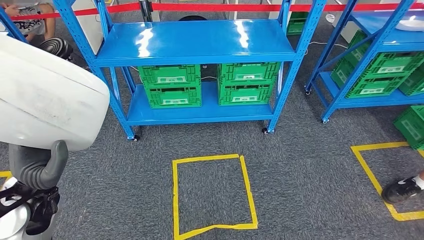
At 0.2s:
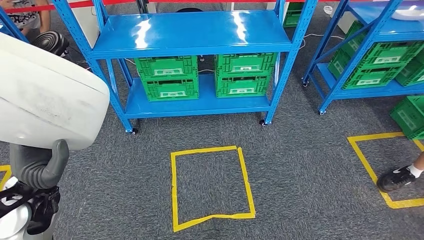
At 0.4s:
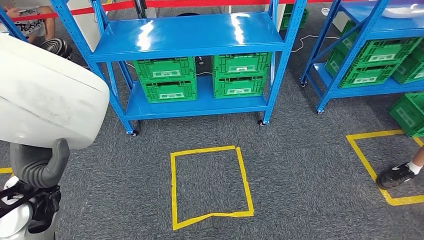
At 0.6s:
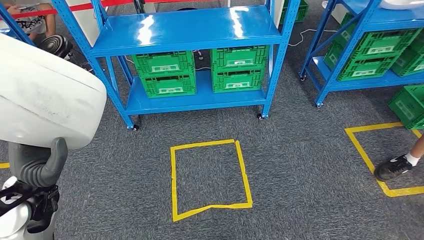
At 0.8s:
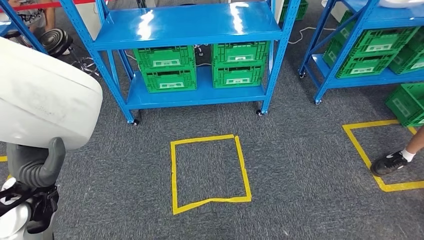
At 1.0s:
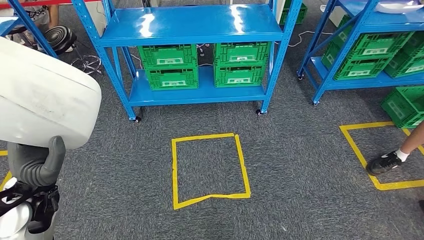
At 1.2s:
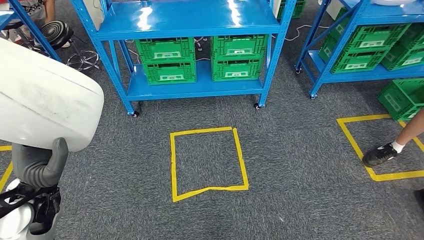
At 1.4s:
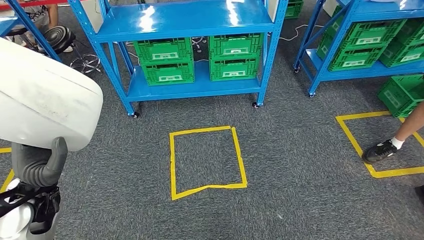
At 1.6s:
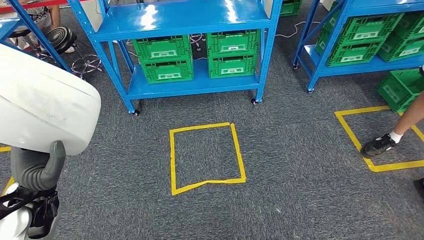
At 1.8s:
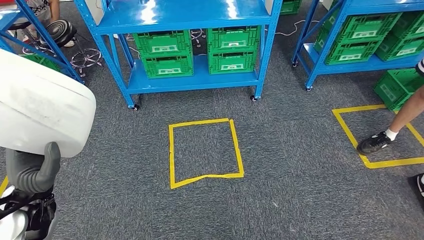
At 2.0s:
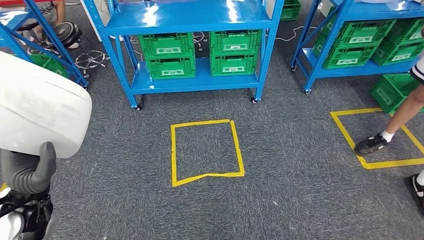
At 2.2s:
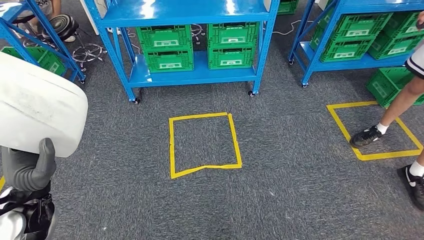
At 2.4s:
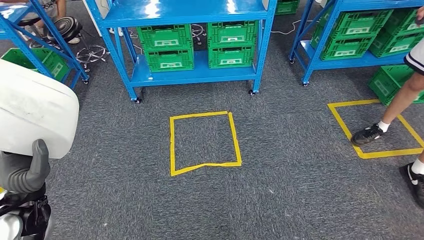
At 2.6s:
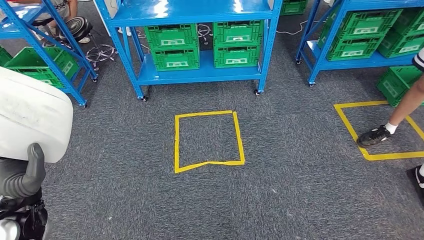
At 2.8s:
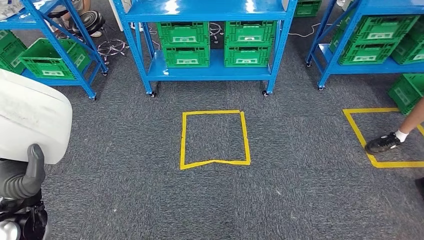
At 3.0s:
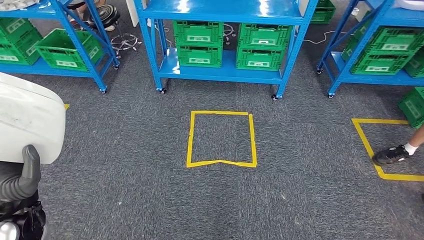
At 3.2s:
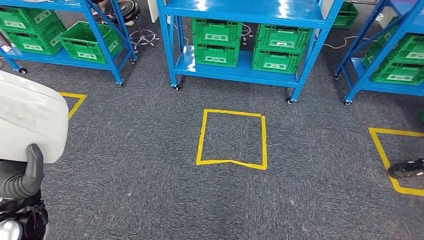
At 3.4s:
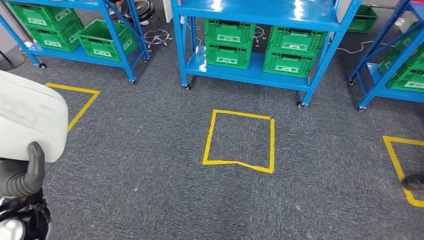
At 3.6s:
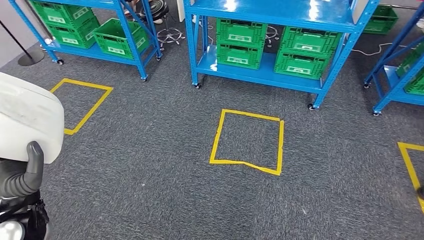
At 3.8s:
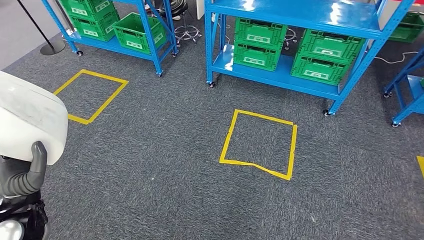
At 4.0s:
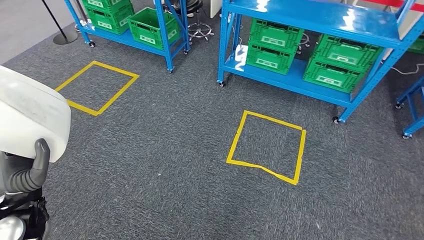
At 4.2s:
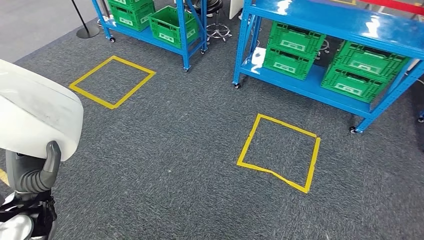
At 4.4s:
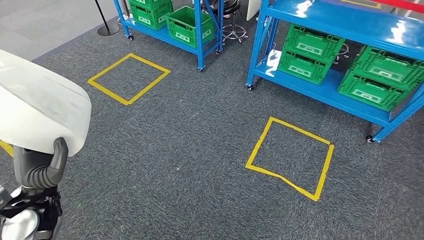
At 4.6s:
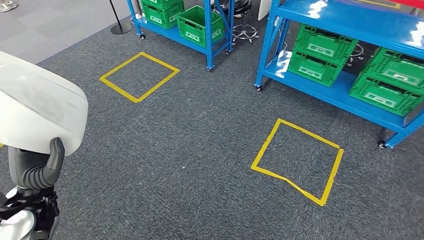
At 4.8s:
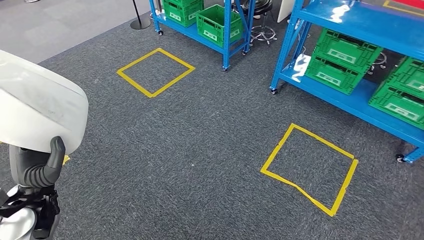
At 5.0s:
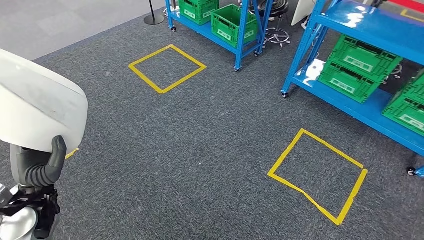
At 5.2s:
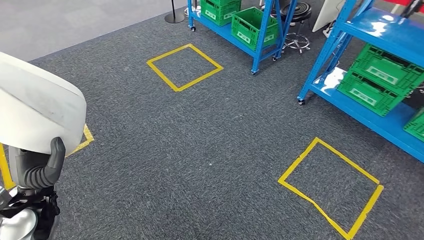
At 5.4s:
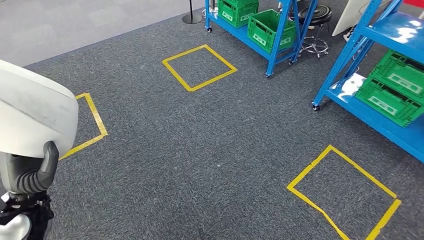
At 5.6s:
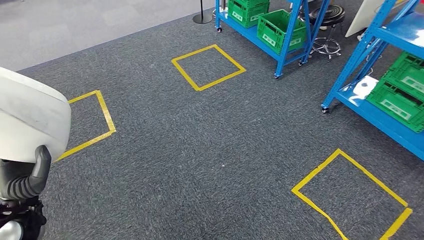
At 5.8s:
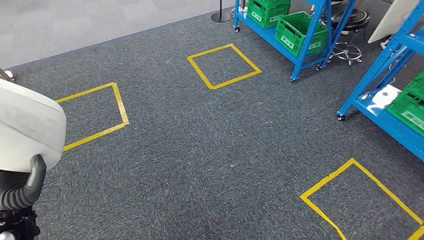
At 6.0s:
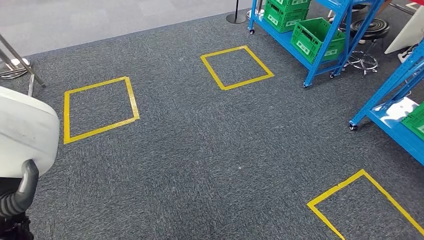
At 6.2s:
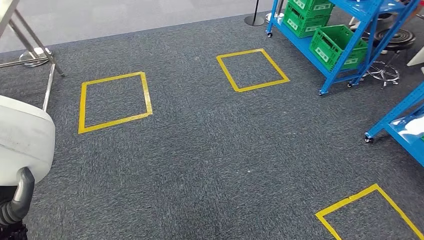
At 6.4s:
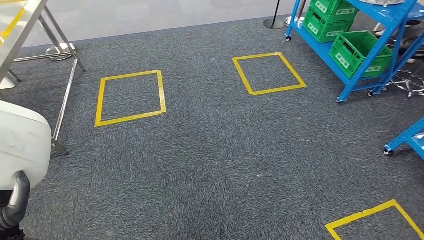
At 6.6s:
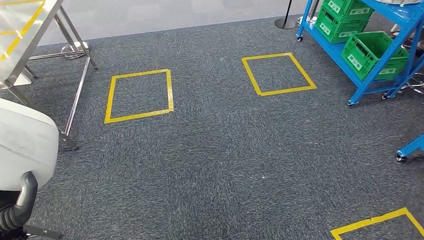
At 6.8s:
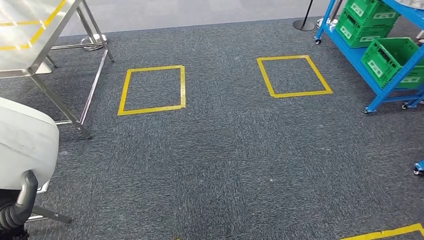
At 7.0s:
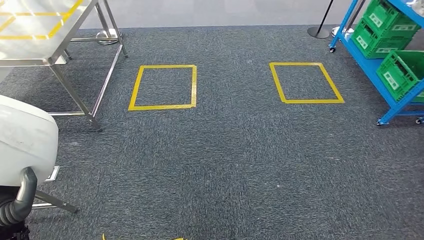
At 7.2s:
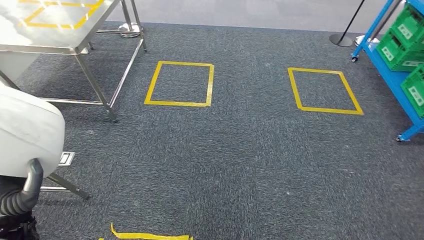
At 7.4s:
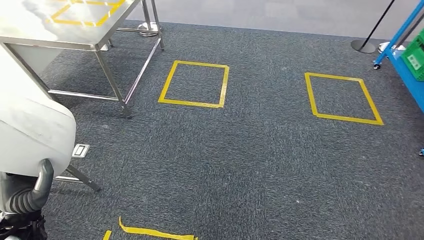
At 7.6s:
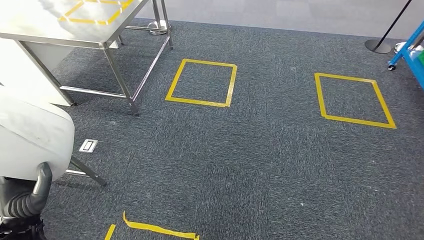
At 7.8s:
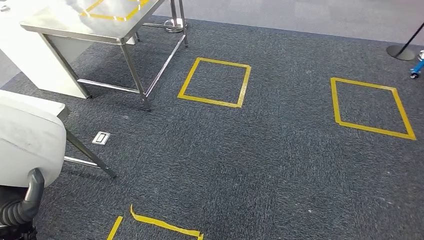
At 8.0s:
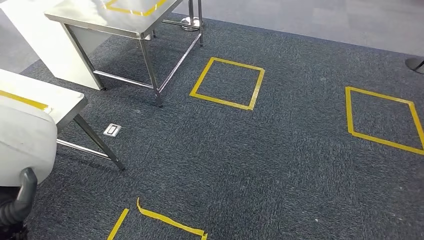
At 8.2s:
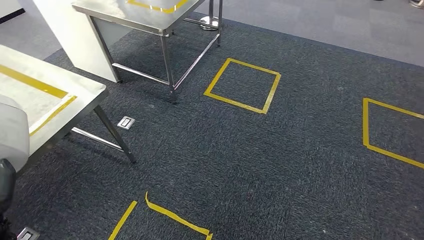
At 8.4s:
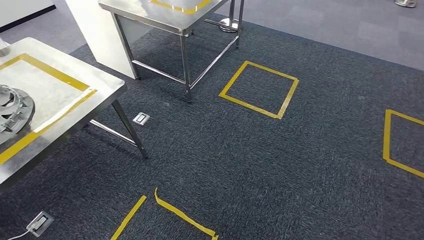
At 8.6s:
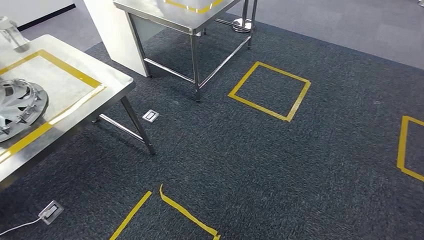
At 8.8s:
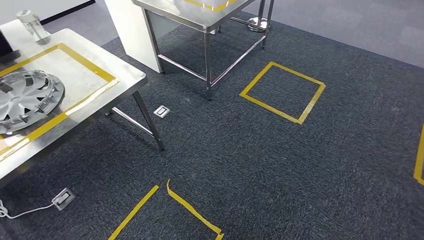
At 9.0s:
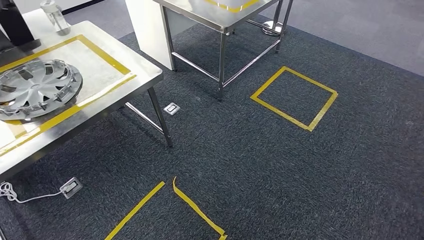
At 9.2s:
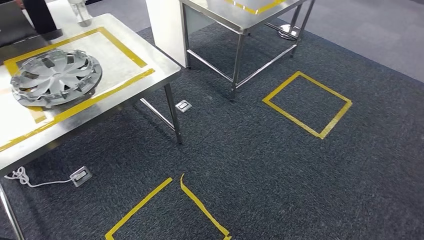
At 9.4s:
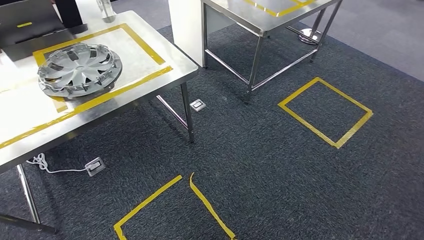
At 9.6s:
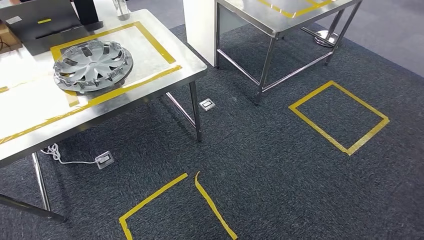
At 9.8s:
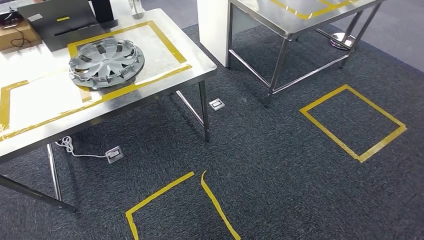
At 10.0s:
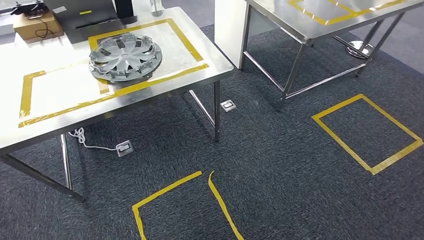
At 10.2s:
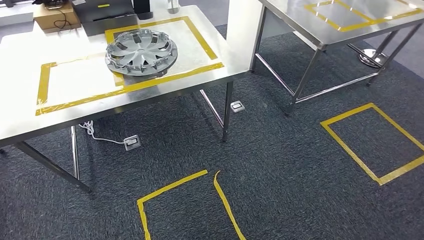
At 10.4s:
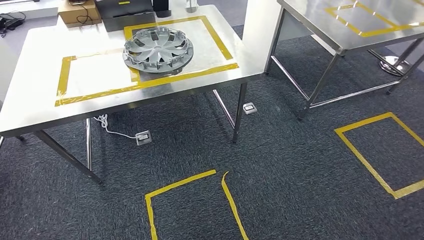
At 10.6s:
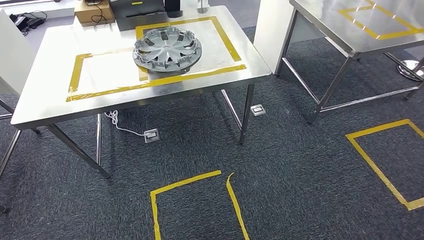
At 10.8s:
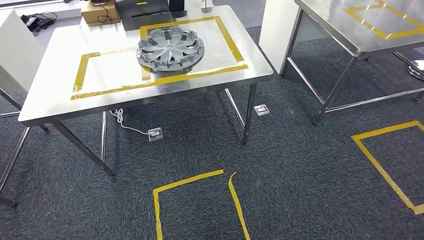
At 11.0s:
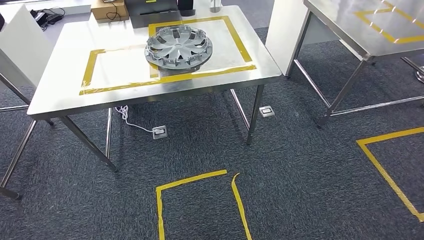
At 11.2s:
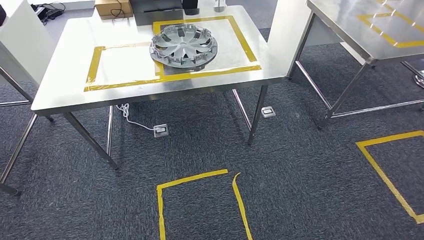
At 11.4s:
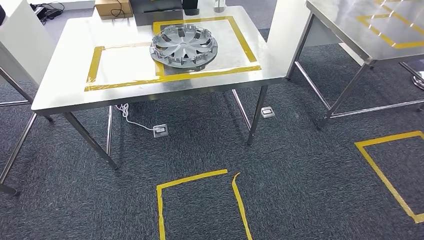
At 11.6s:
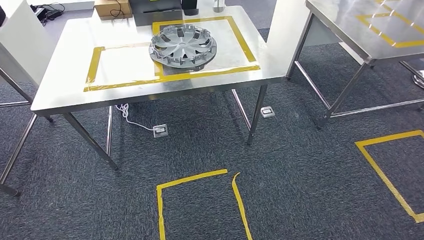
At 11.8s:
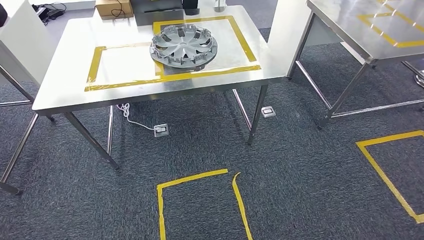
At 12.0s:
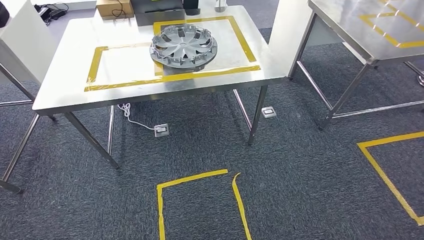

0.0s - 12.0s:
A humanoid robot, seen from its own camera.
Step, 0.0s - 9.8s: Move the small parts to the workbench.

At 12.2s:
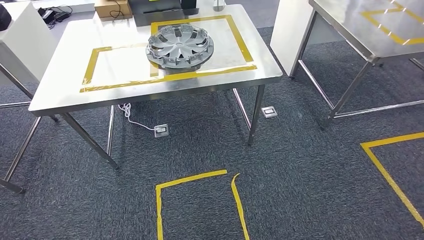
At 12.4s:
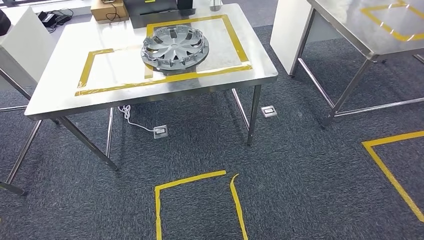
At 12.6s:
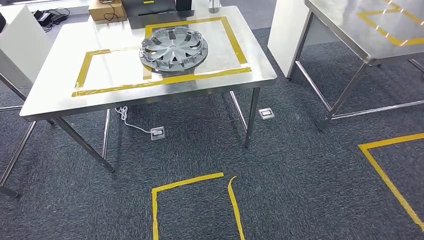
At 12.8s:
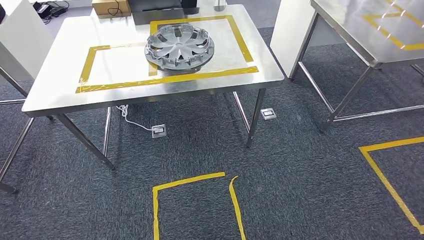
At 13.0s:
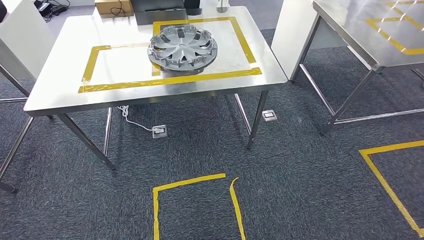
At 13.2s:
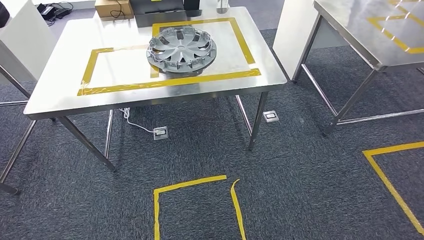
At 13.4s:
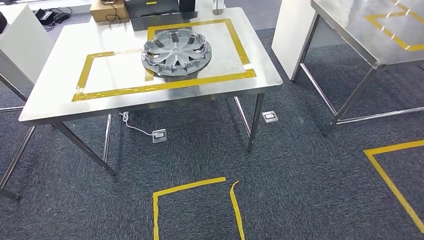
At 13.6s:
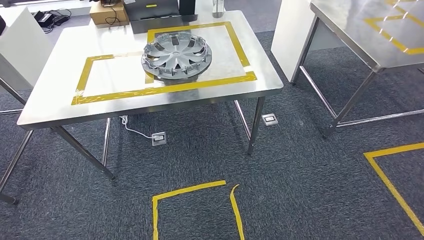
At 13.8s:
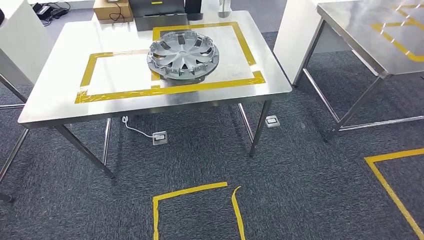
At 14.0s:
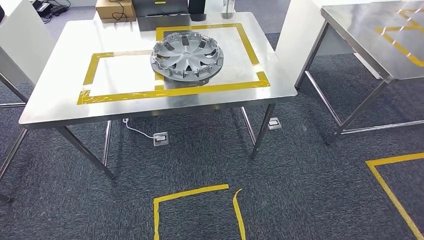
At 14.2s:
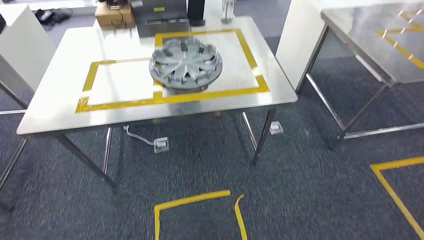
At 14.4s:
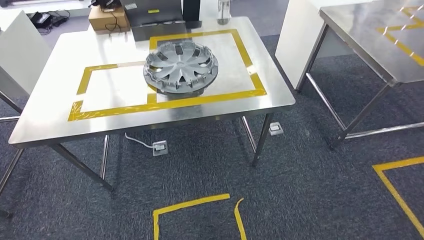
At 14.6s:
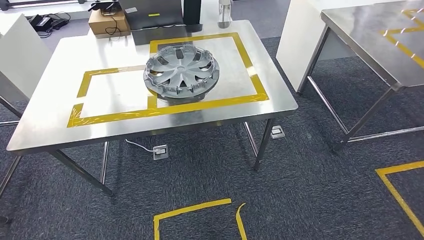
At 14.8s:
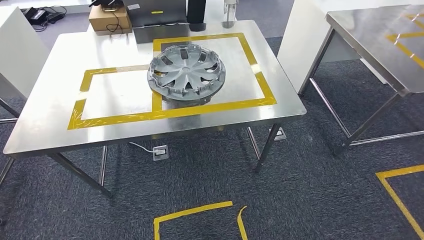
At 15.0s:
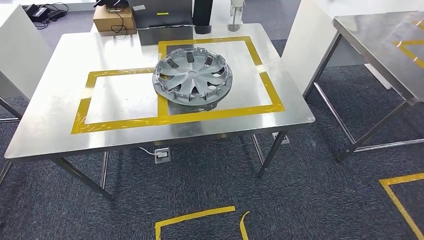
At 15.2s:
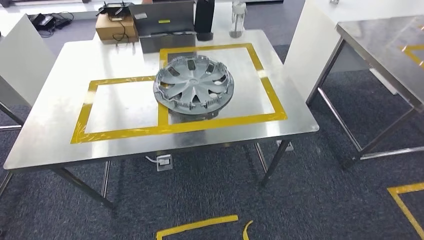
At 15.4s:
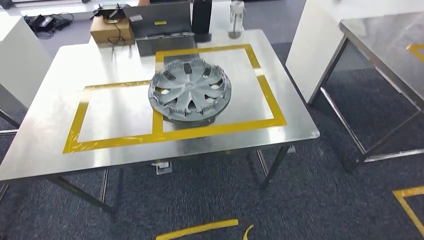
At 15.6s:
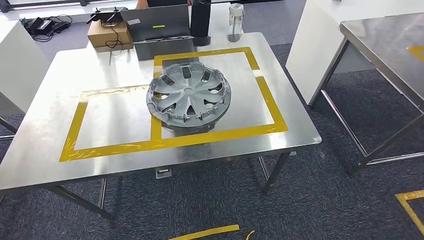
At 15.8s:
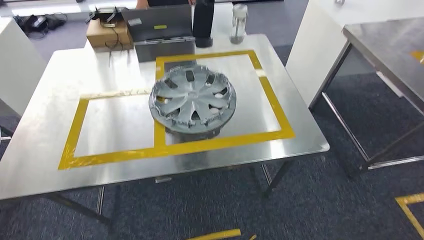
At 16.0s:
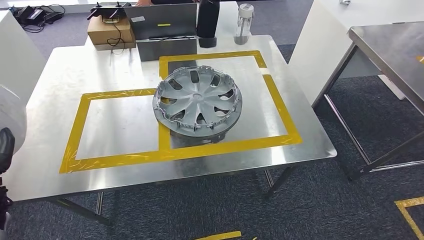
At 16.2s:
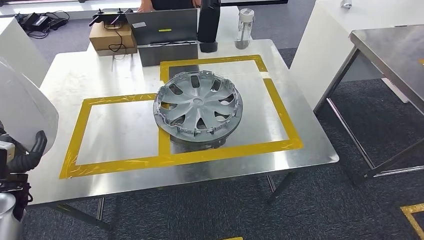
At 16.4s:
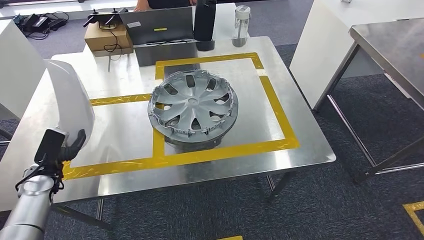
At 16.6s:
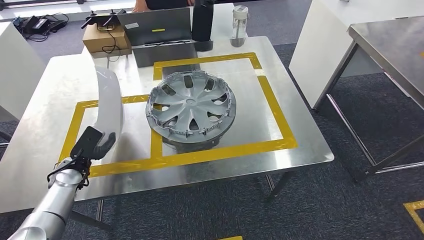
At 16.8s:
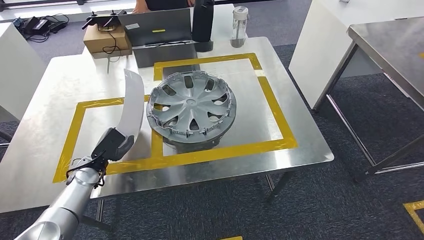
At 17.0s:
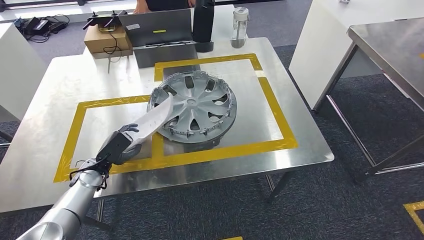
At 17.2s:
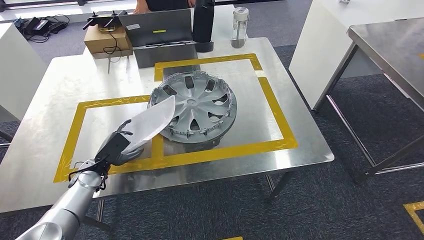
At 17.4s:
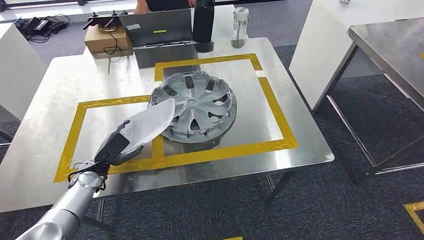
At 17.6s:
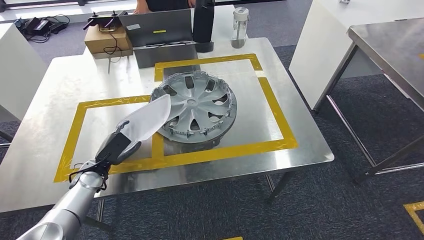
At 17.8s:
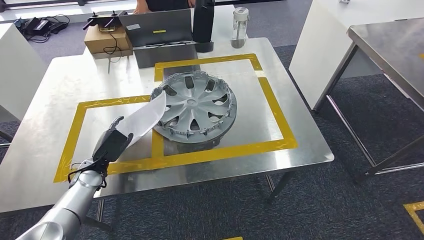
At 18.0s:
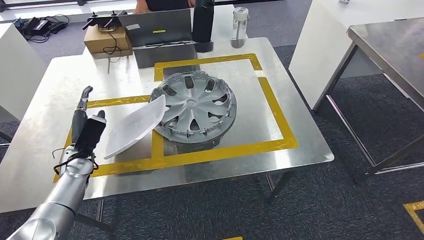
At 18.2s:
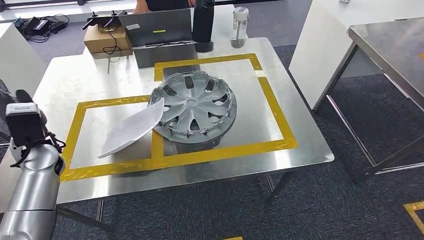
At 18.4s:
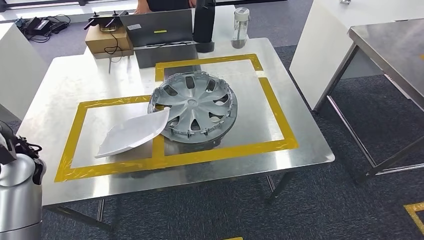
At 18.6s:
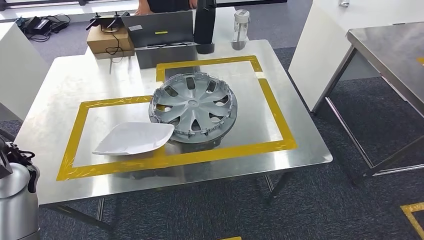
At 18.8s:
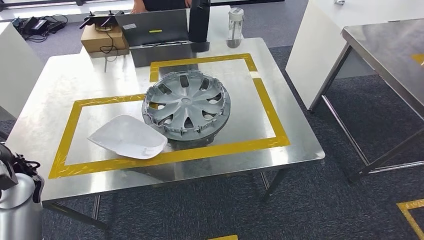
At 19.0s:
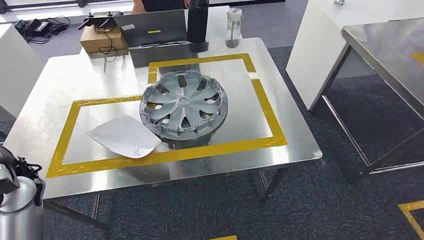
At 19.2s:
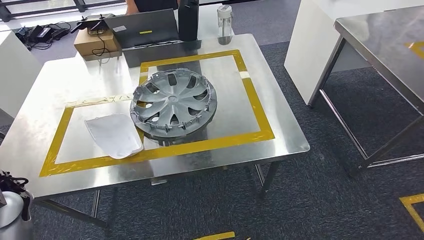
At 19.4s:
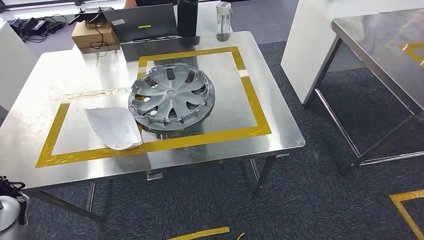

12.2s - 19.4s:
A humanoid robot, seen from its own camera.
Step, 12.2s - 19.2s: Insert the small parts into the corresponding holes on the workbench.
16.6s - 18.0s: The left hand changes place by approximately 5 cm.
